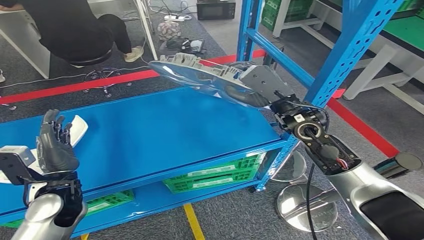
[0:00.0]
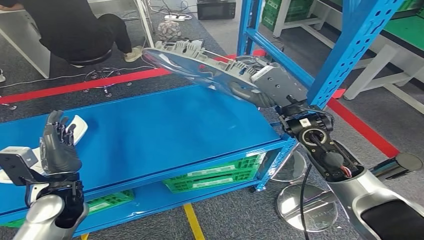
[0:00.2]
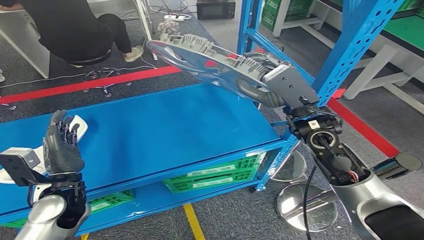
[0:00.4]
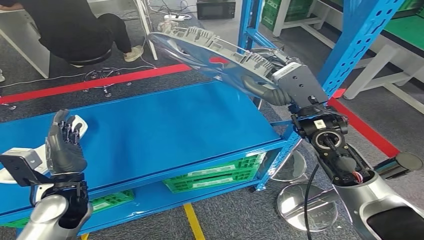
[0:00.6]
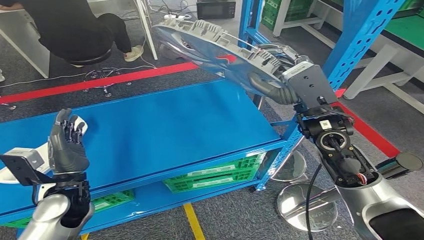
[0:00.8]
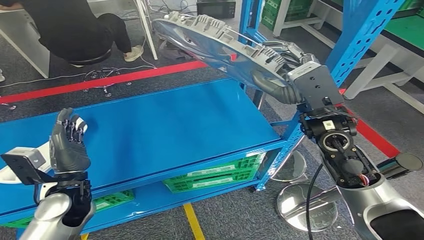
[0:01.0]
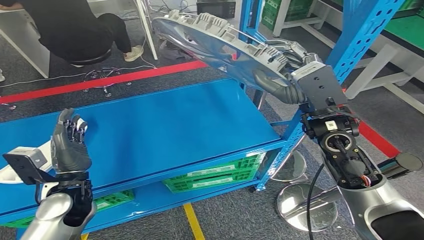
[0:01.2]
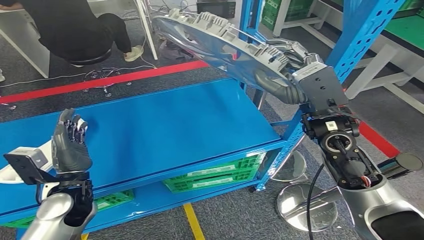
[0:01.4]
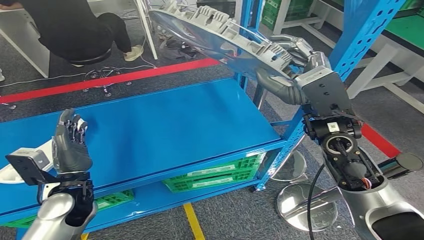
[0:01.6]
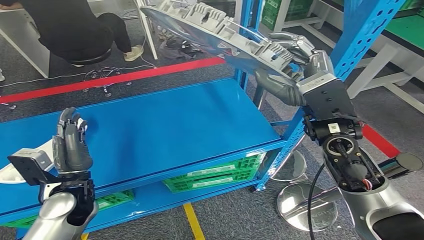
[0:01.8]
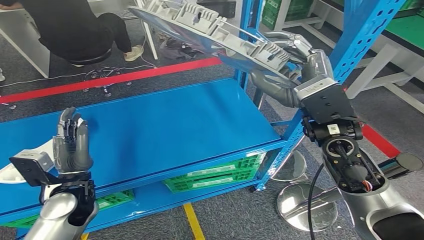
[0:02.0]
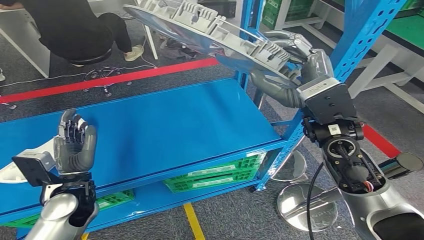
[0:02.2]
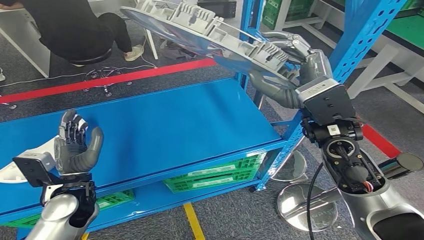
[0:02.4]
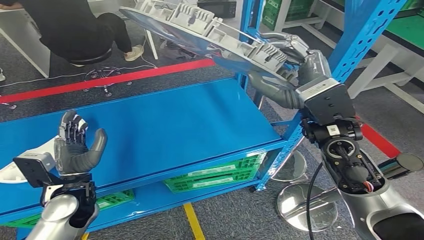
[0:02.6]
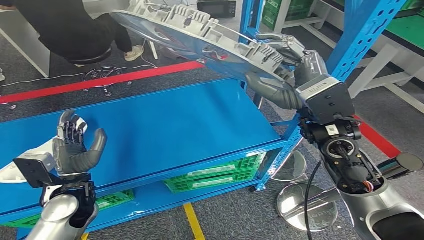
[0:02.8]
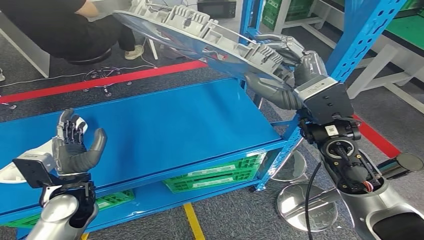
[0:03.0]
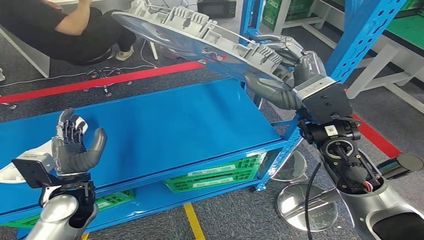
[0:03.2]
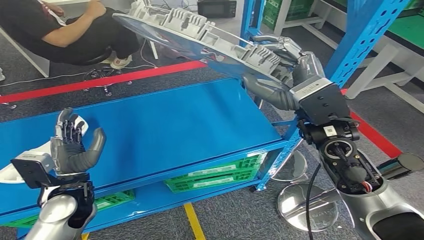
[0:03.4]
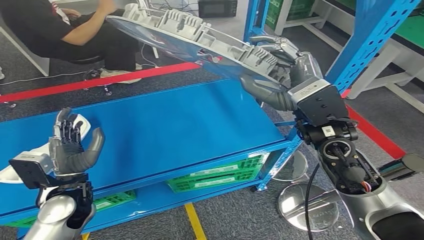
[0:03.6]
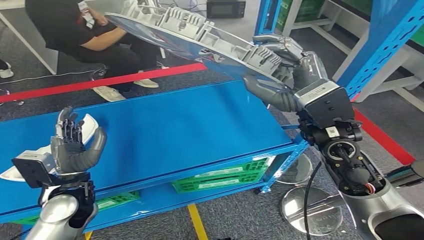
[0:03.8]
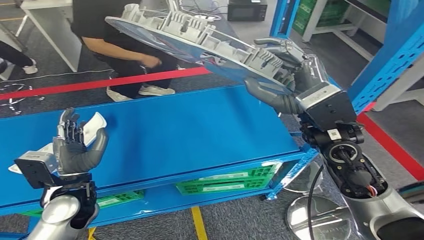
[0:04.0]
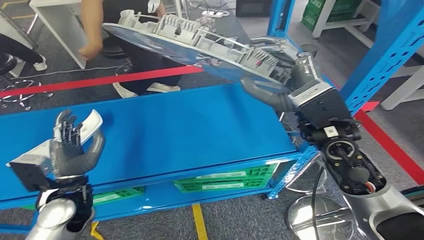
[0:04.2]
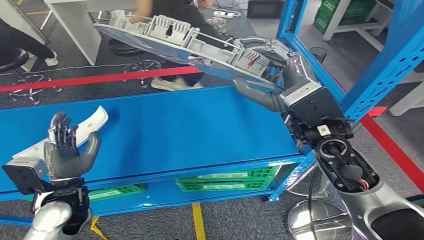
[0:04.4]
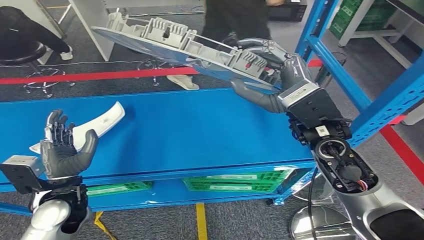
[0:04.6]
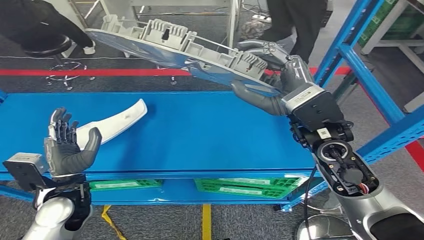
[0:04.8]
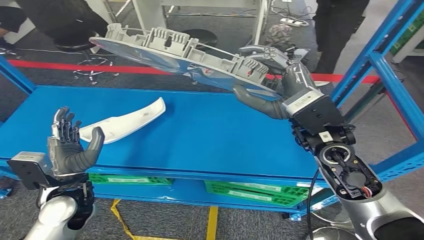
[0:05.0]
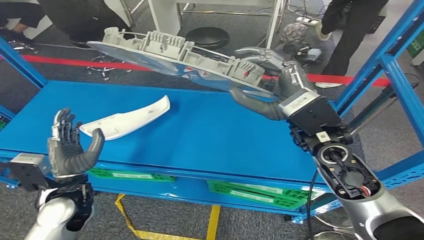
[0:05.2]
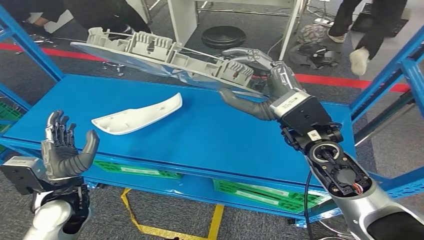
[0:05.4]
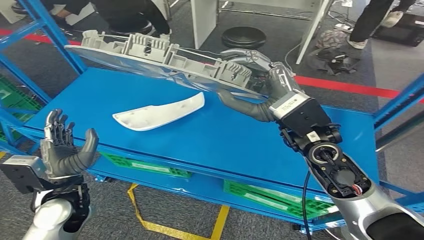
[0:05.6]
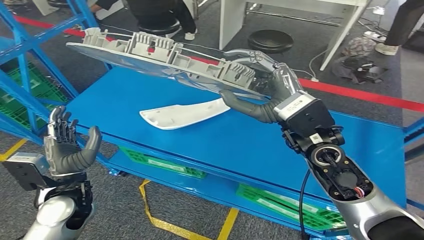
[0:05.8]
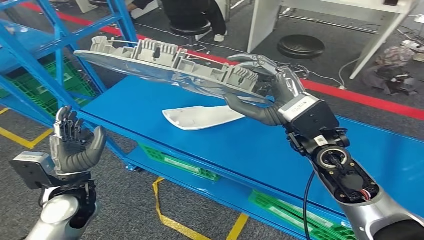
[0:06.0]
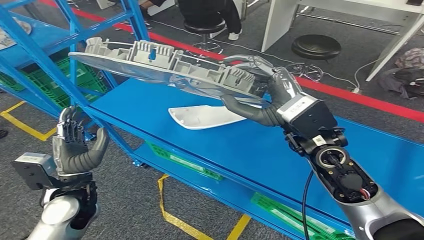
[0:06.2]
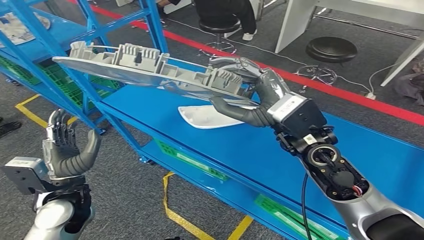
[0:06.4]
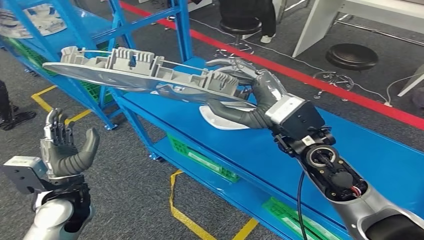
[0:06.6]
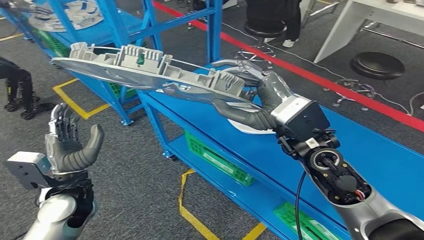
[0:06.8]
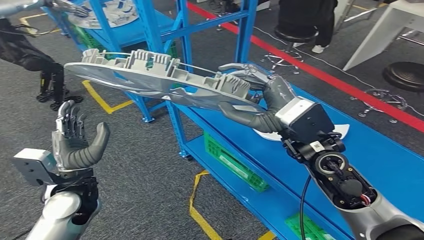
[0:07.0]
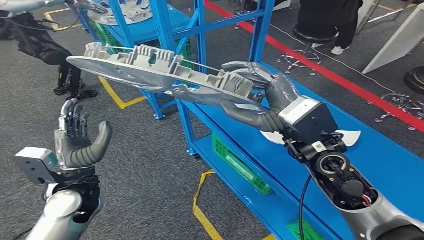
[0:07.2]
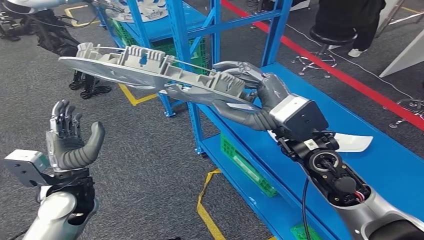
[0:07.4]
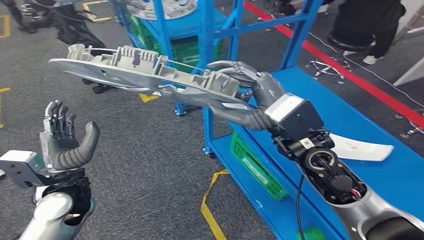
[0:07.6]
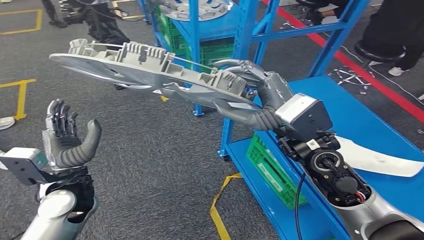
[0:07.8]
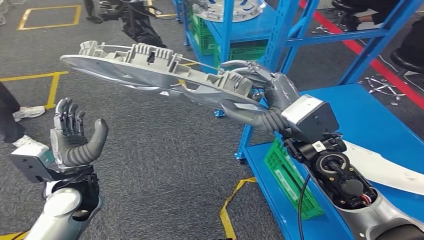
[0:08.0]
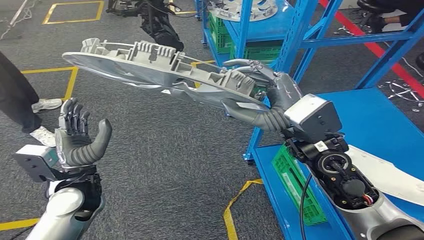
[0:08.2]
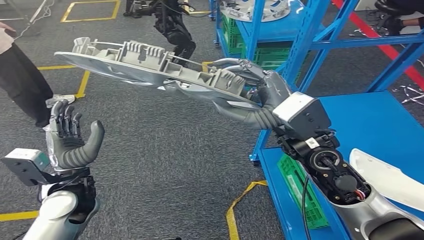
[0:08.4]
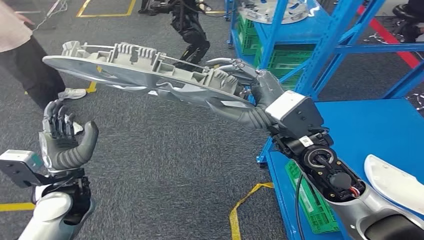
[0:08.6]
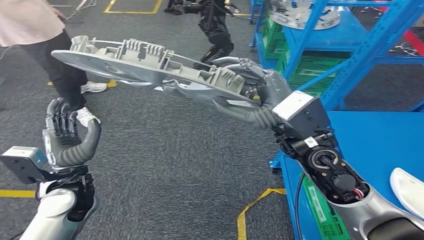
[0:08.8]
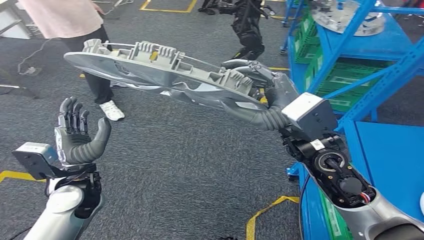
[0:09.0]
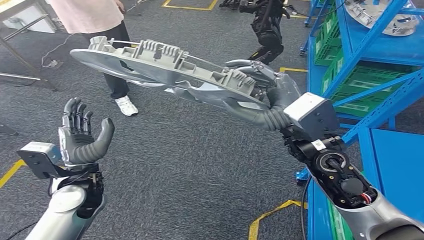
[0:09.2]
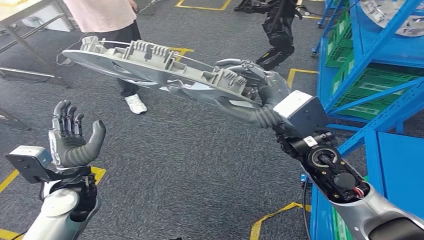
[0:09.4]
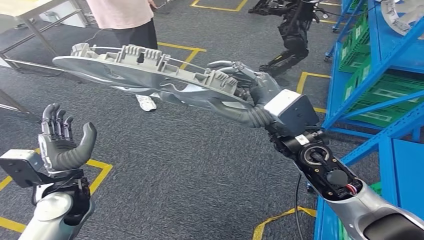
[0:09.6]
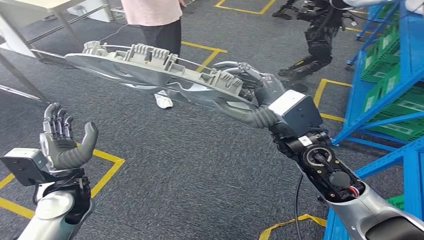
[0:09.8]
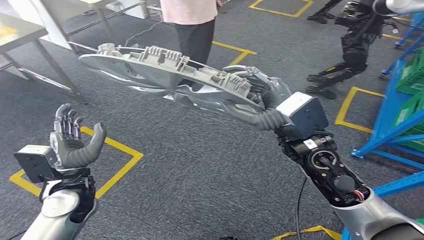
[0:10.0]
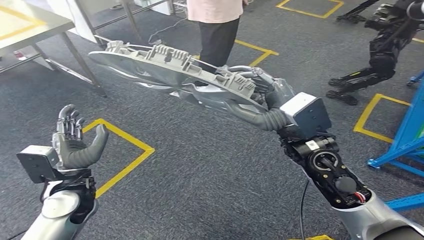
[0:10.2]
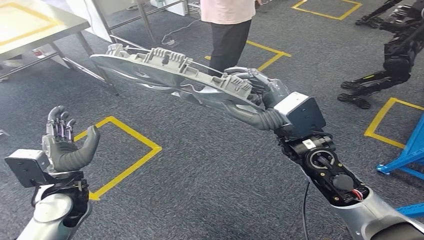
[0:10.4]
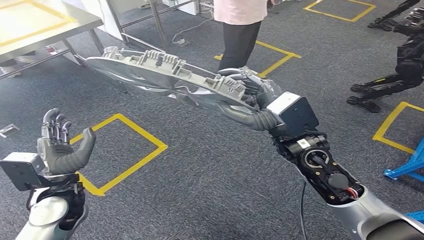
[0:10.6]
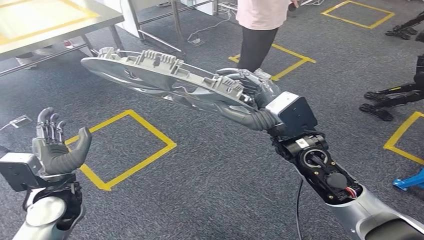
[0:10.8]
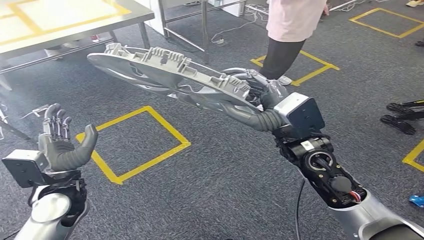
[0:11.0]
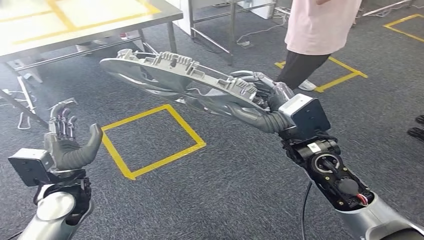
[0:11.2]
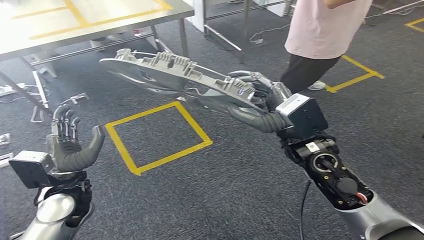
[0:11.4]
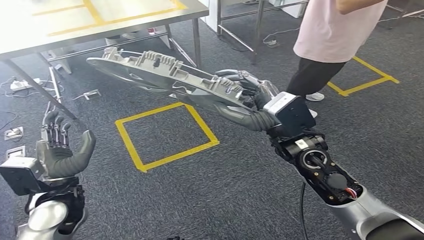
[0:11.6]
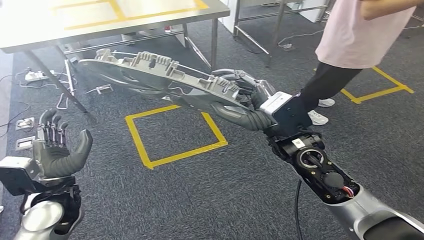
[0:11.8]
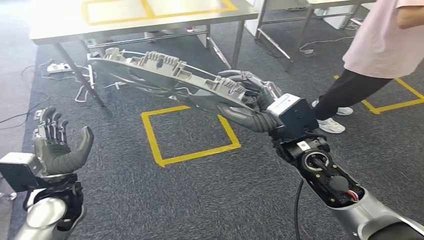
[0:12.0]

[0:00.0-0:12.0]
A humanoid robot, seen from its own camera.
0:01.6 to 0:03.0: The hands move only a little.

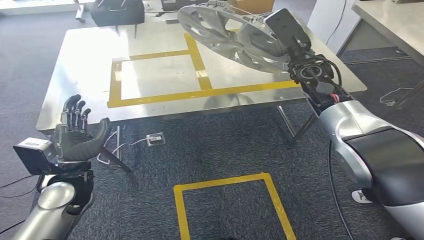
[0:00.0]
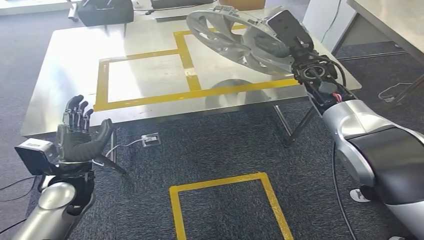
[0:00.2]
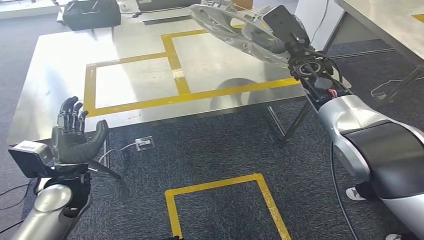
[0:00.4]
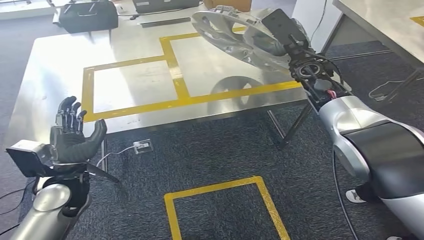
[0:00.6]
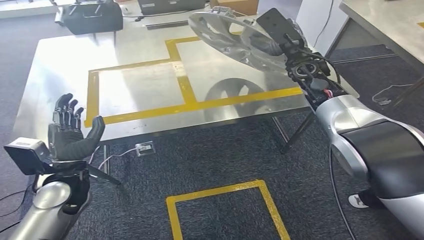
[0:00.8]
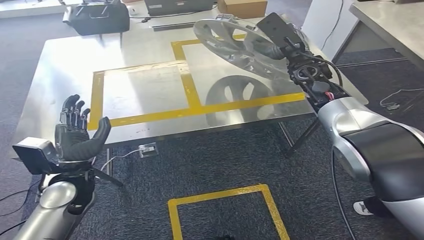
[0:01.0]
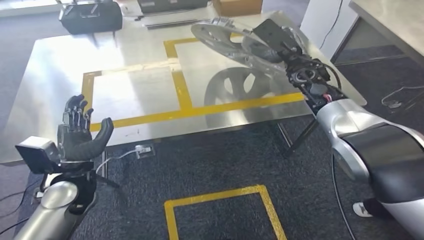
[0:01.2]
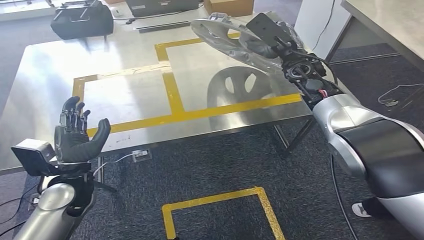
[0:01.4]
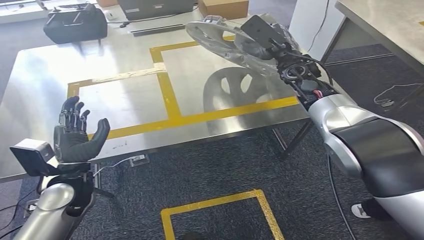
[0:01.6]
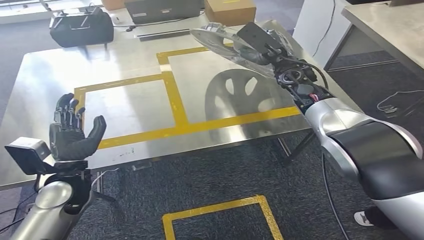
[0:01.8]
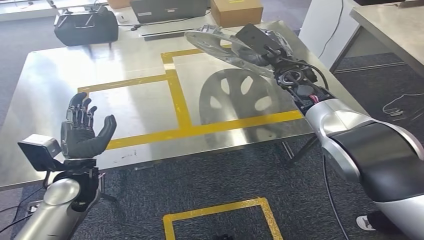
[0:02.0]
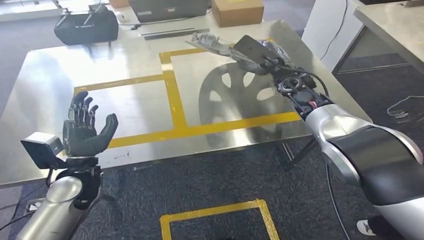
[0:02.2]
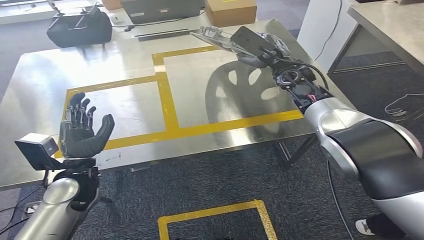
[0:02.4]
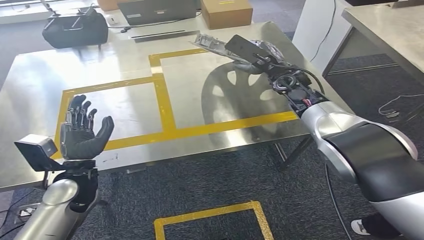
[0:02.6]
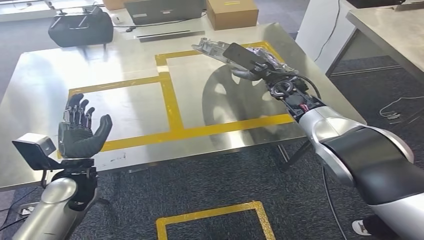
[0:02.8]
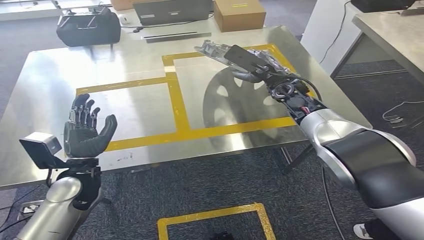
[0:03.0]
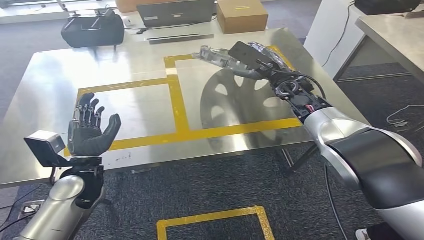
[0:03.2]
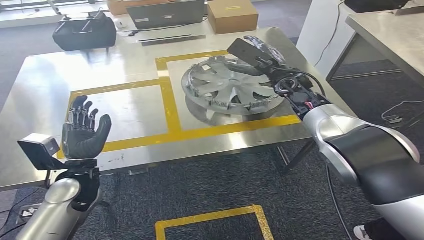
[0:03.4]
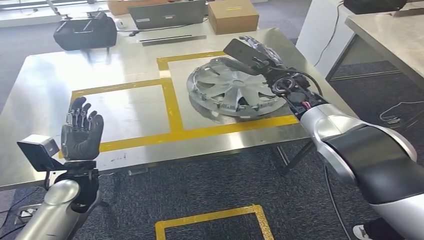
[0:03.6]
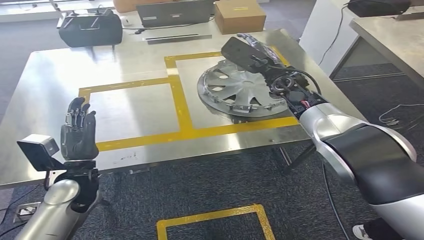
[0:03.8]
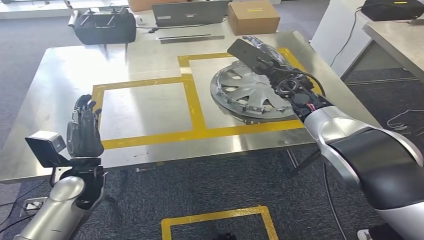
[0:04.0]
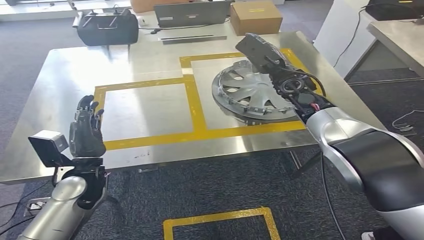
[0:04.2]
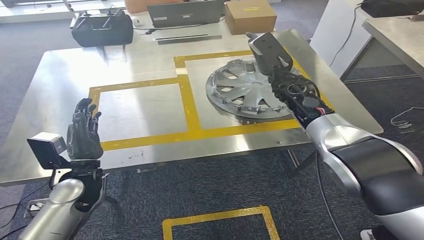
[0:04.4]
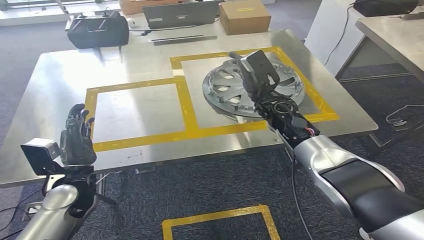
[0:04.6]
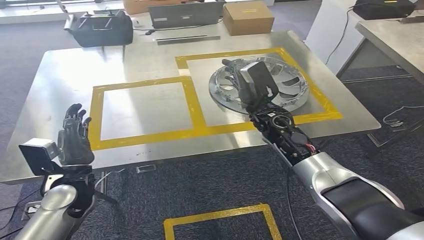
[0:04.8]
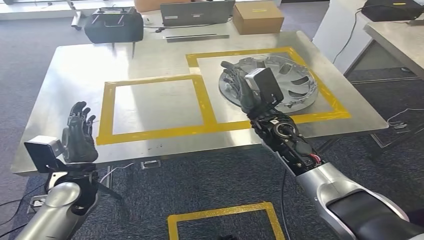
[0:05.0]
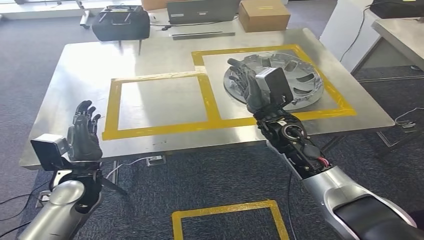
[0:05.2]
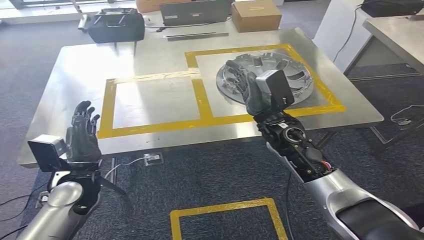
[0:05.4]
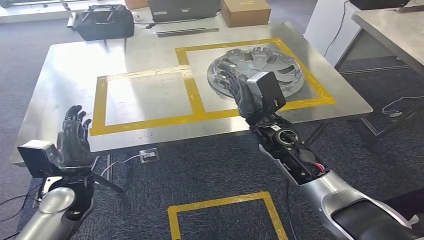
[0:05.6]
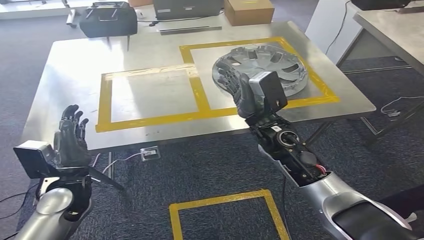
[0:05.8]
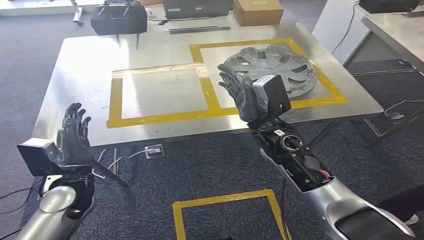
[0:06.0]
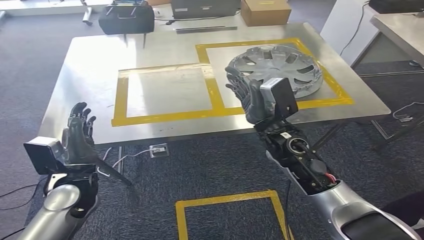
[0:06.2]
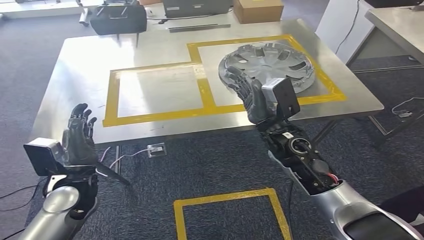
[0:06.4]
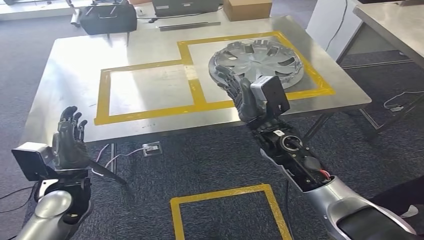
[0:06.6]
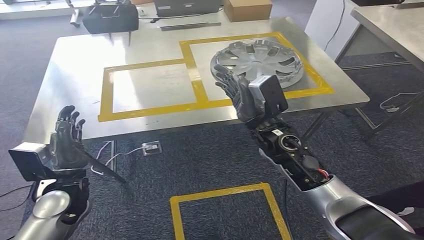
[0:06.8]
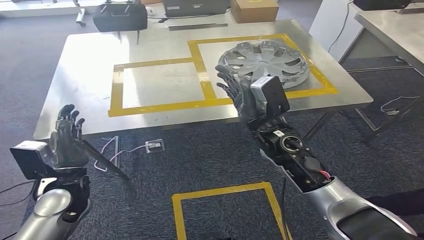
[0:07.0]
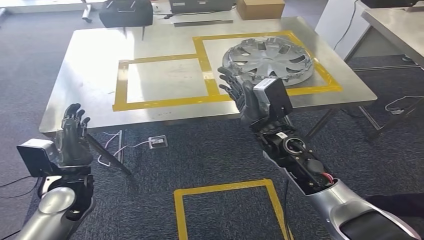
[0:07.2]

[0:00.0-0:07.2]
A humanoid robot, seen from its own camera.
Step, 0:01.2 to 0:06.2: Insert the small component into the corresponding slot on the workbench.
